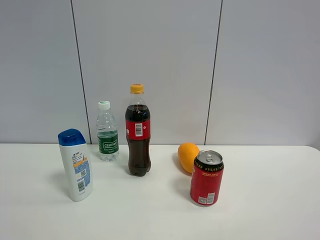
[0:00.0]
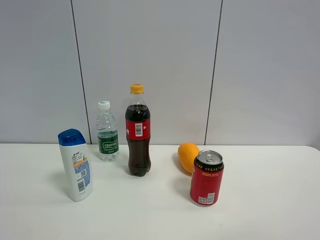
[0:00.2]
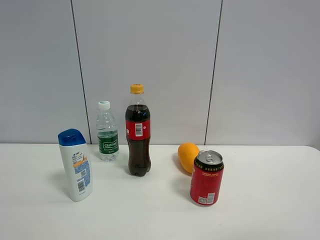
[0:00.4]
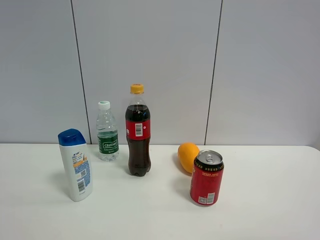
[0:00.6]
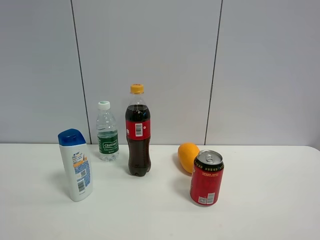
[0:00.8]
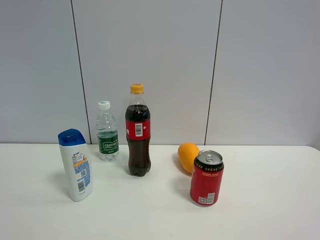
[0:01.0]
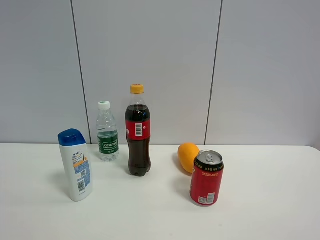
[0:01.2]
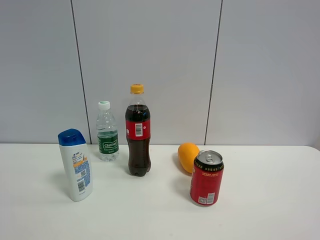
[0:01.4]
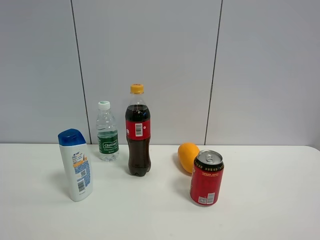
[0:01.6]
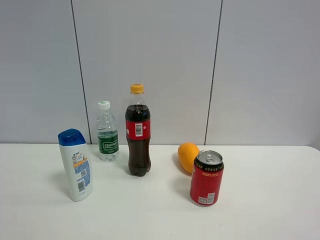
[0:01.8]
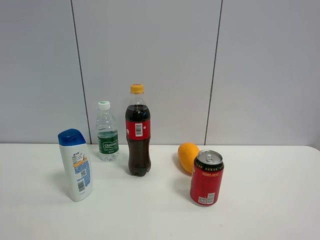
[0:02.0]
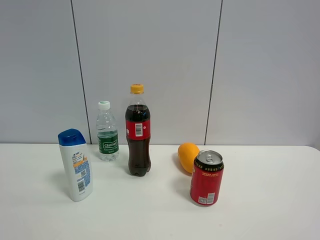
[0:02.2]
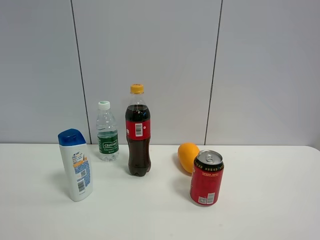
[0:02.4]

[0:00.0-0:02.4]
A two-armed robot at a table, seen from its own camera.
Task of the whole recording: the gripper move the object.
0:01.2 to 0:02.4: Both grippers stay put.

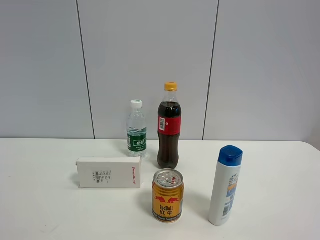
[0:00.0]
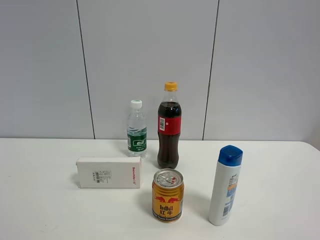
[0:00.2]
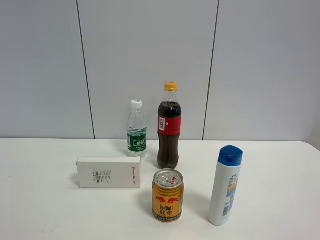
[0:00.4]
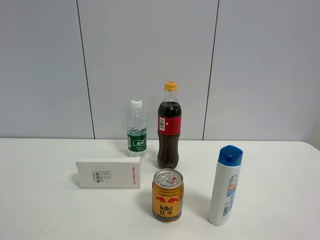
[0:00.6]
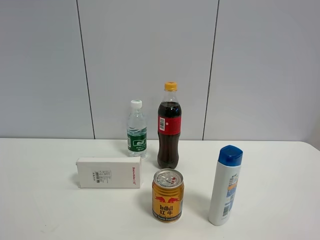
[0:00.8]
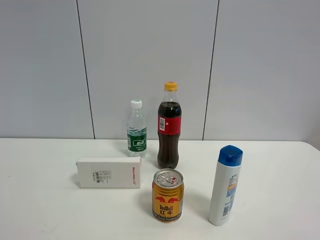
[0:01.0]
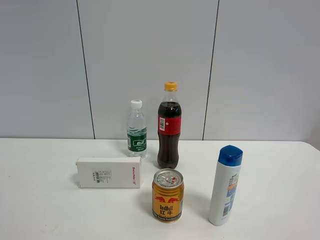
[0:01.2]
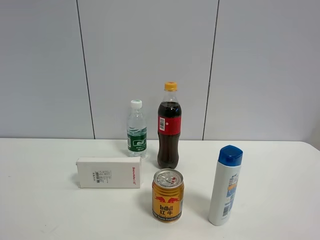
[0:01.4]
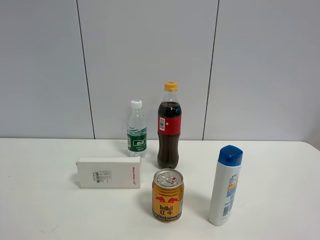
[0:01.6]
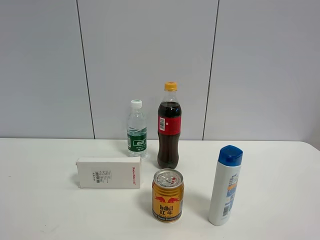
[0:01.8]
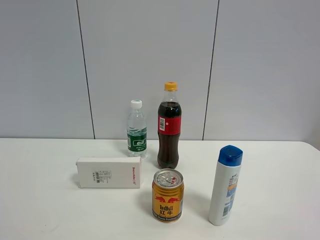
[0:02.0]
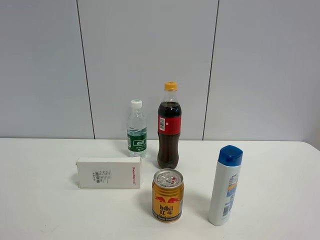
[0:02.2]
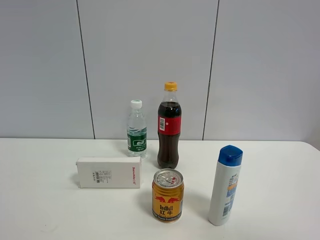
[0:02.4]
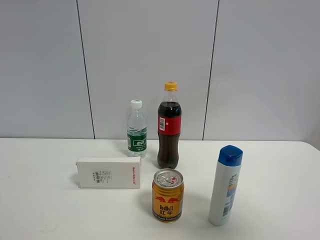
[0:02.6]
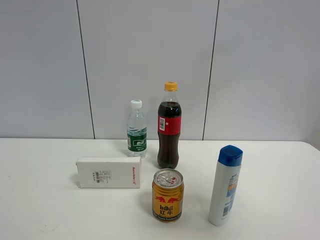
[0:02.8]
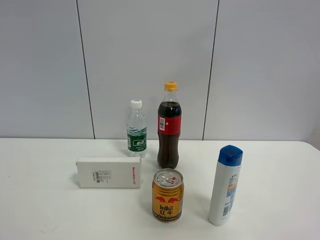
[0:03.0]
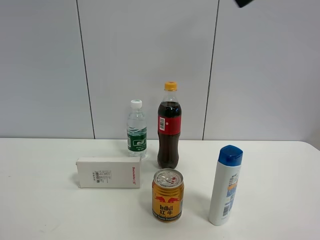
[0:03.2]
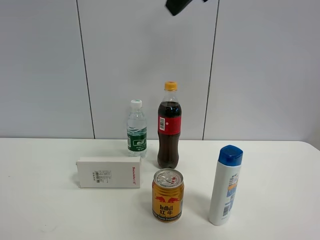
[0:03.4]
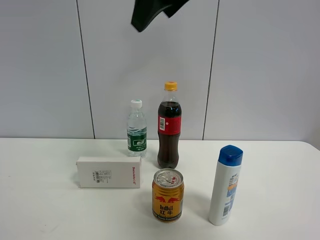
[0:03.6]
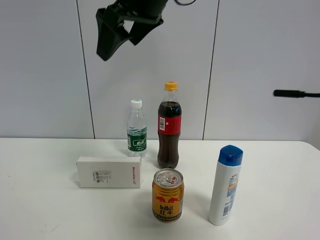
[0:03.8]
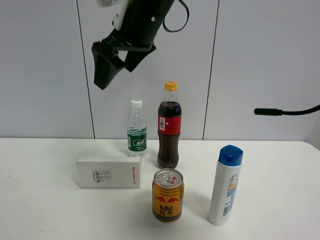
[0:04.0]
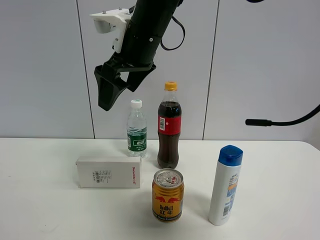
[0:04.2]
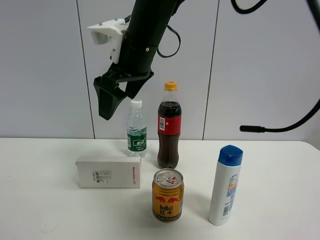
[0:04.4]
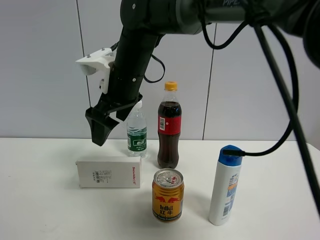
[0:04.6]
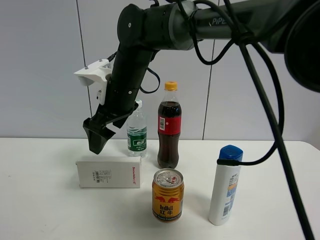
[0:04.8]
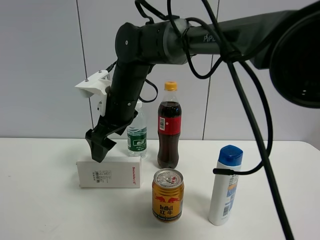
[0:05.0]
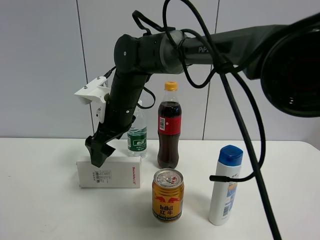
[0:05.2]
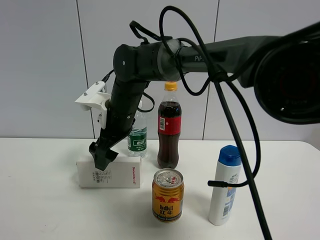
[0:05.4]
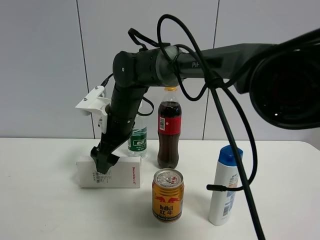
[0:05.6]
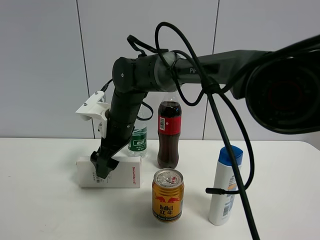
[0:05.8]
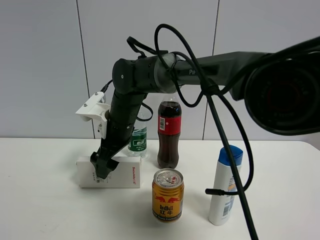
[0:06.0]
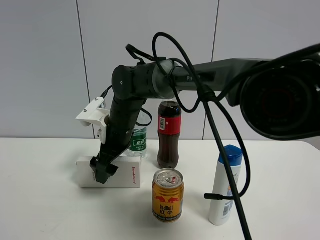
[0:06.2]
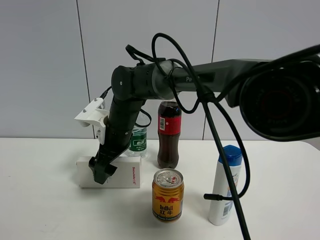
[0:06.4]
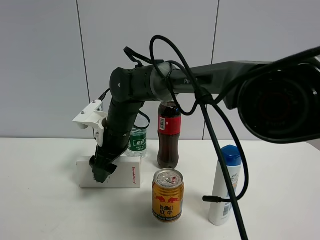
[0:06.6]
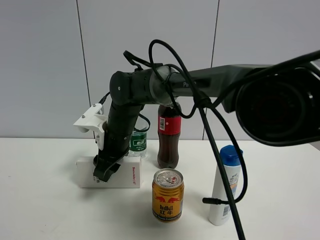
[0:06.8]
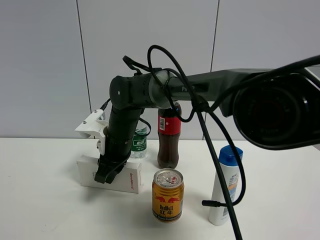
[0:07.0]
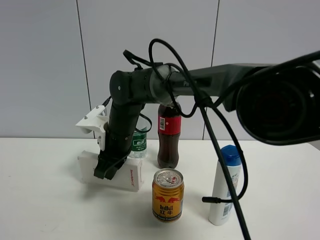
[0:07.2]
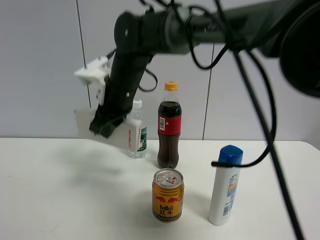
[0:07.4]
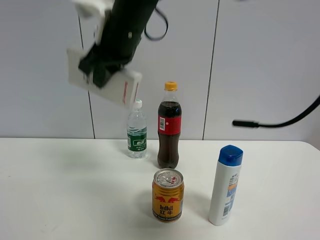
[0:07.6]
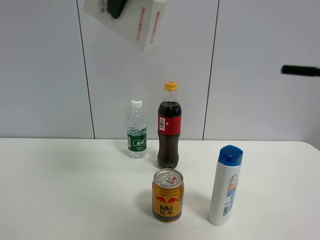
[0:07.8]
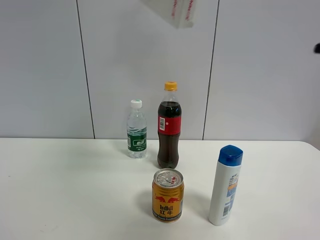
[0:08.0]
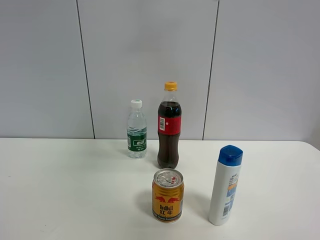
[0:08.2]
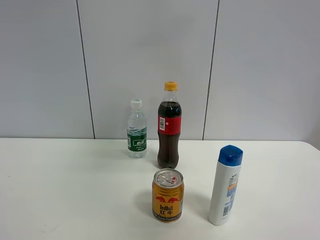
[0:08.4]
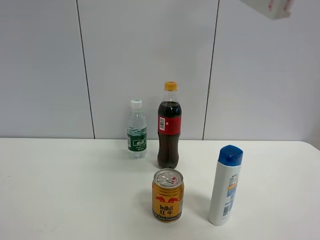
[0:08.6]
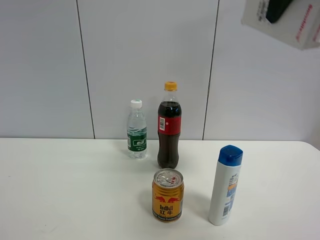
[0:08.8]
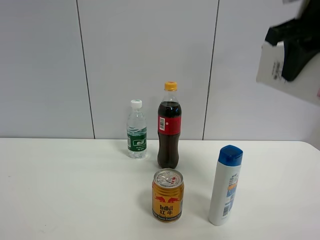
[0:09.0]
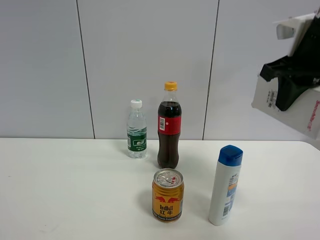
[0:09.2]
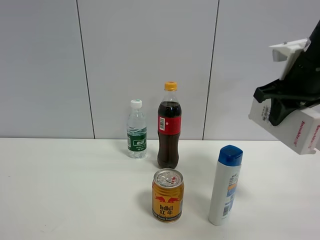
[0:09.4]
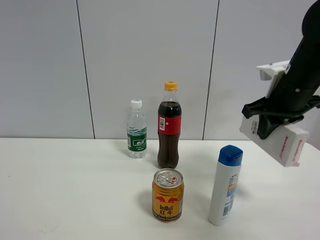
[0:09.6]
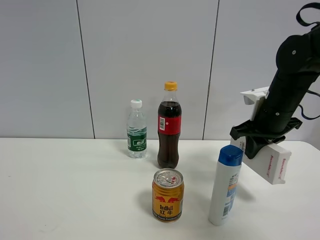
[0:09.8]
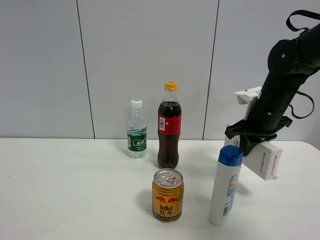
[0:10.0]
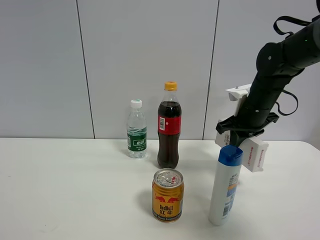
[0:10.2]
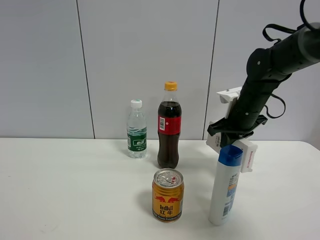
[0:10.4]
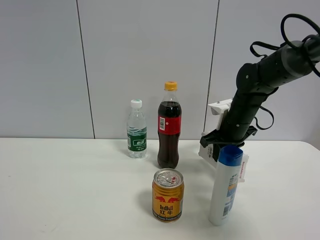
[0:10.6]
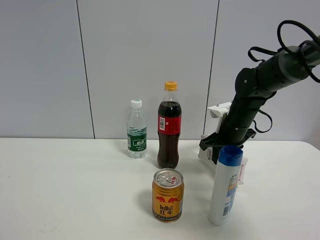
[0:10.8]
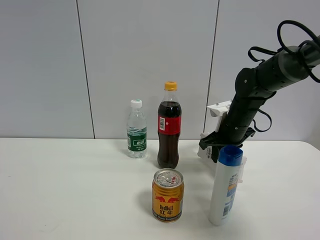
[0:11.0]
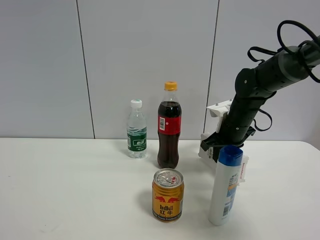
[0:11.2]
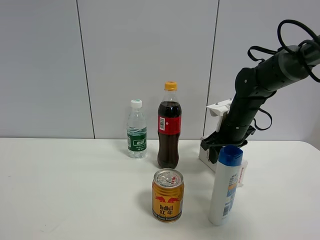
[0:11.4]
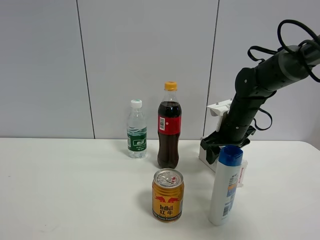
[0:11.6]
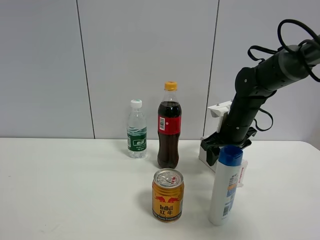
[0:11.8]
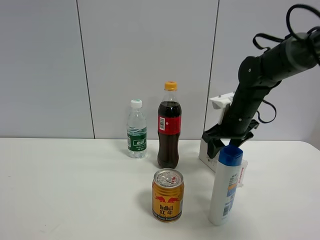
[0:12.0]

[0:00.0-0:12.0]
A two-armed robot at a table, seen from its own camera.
Task of the whole recording: the gripper move the object.
Step, 0:00.0 to 0:07.0: Grasp the USB box with the right gripper.
Step, 0:07.2 to 0:11.6: Place the USB box on the table with the right gripper.
0:00.0 to 0:01.6: Both grippers stay about where they are.
0:01.6 to 0:03.0: The right gripper goes some 25 cm forward and upward.
0:03.0 to 0:04.4: The right gripper moves to the left, forward and downward, roughly 35 cm.
0:04.4 to 0:06.0: The right gripper heads downward, covering approximately 15 cm.
0:06.0 to 0:07.6: The right gripper is displaced upward by approximately 20 cm, and closes.
0:07.6 to 0:09.0: The right gripper moves to the right, approximately 30 cm.
0:09.0 to 0:10.4: The right gripper travels downward and forward by roughly 25 cm.
0:10.4 to 0:12.0: The right gripper opens up.

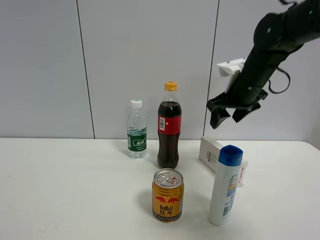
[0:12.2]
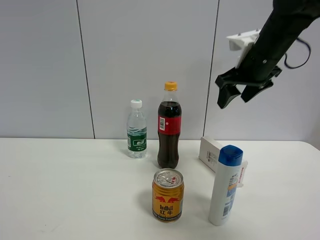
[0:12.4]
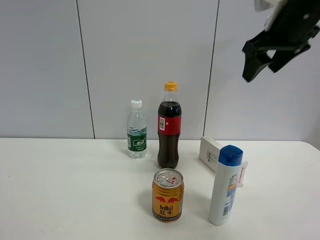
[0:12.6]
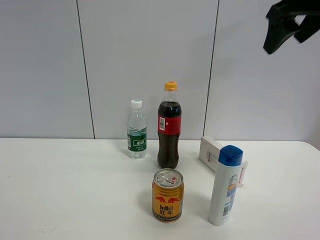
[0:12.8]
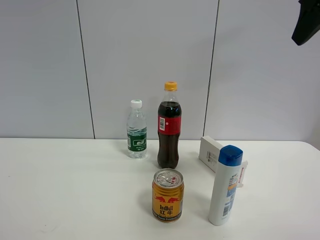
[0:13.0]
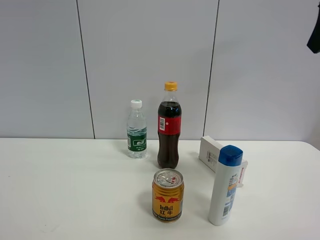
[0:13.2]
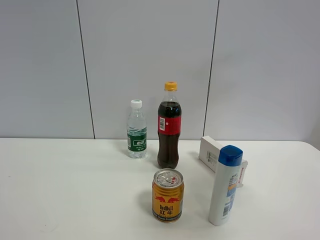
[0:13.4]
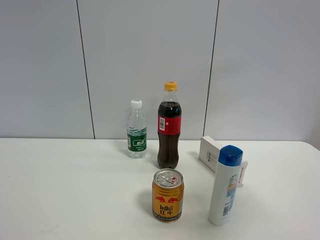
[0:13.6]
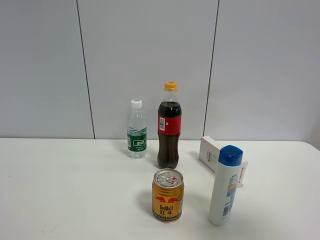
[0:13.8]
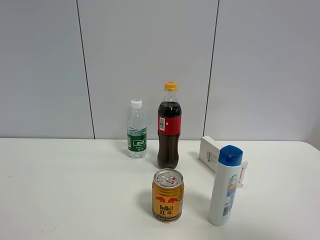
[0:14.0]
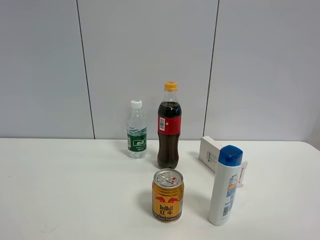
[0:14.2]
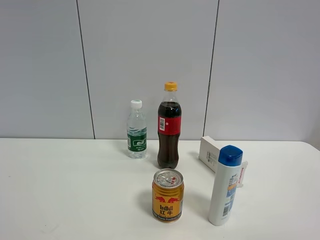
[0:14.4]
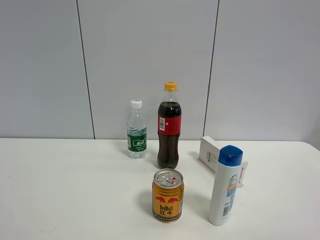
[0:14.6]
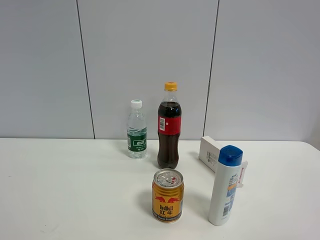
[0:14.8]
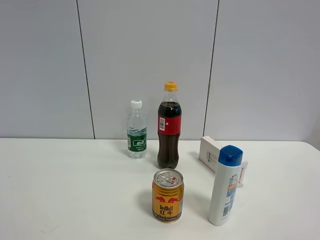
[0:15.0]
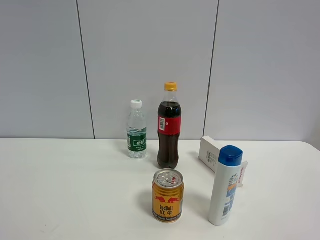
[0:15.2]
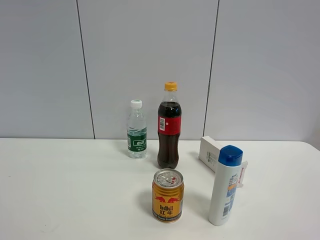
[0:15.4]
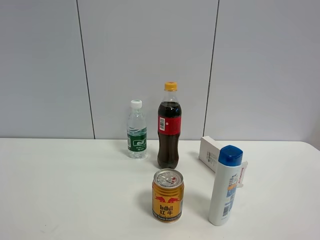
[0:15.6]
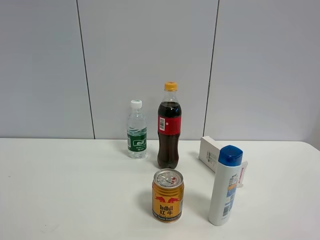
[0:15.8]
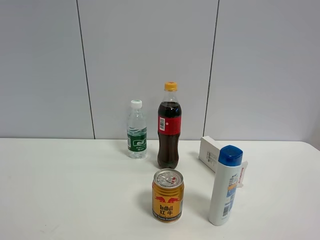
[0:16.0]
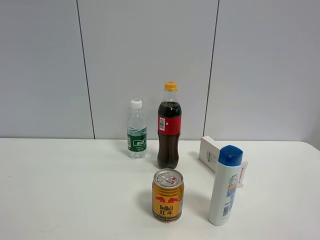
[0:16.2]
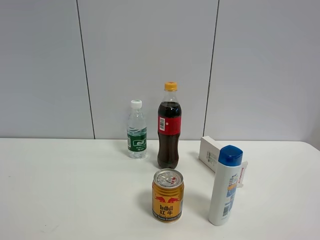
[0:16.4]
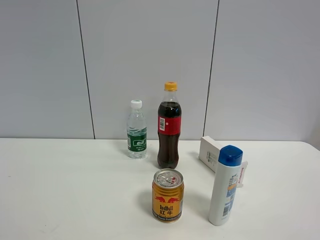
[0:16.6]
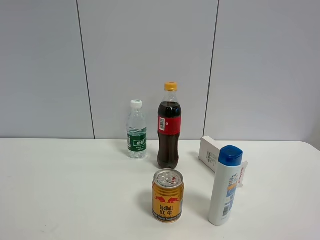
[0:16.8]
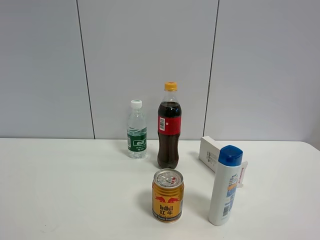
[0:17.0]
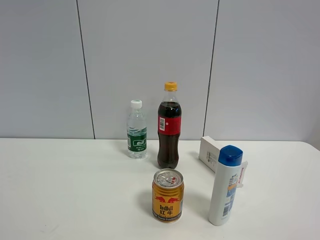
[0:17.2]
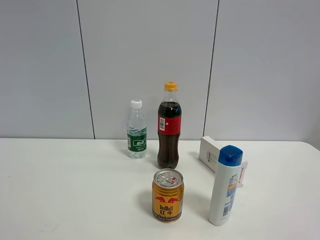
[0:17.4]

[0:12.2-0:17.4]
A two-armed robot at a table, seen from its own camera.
Task of the whole recording: the gripper move the object.
0:12.2 to 0:14.0: The right gripper goes approximately 35 cm backward.
0:14.0 to 0:15.6: The right gripper goes some 5 cm backward, and opens up.

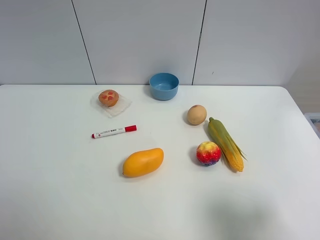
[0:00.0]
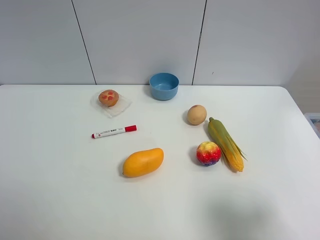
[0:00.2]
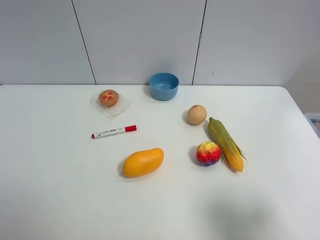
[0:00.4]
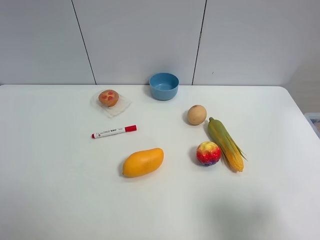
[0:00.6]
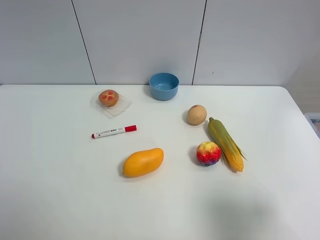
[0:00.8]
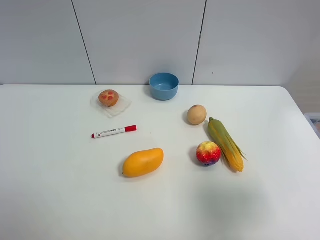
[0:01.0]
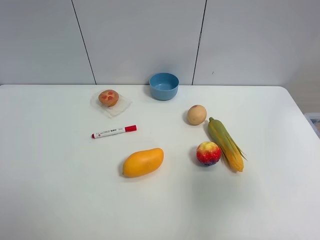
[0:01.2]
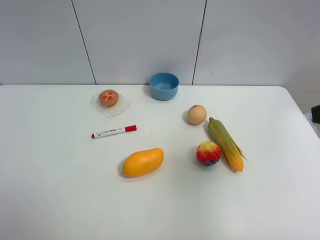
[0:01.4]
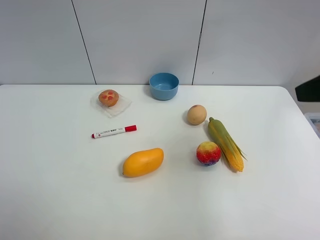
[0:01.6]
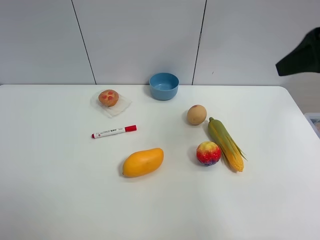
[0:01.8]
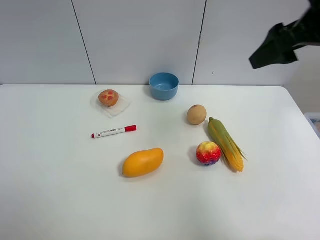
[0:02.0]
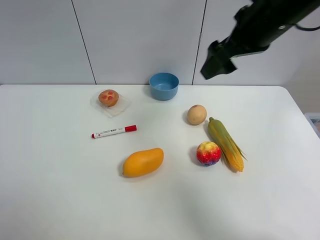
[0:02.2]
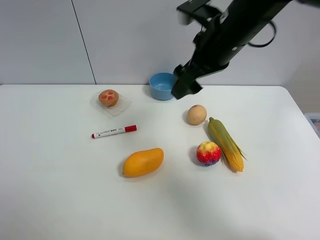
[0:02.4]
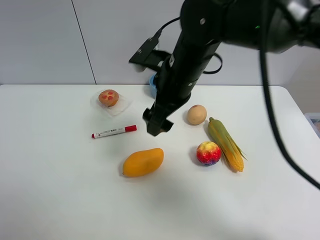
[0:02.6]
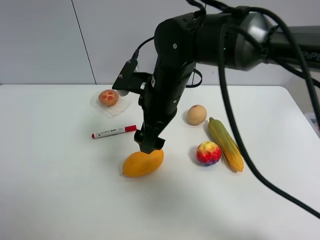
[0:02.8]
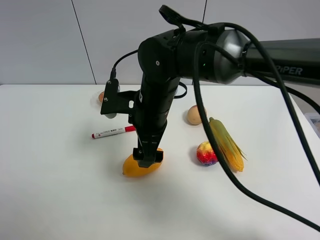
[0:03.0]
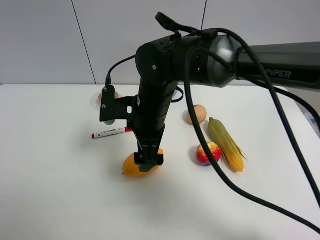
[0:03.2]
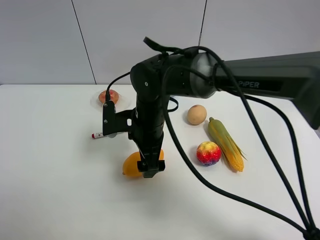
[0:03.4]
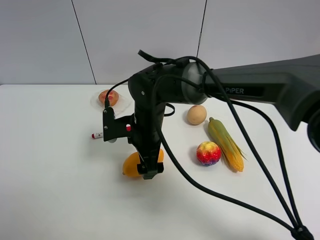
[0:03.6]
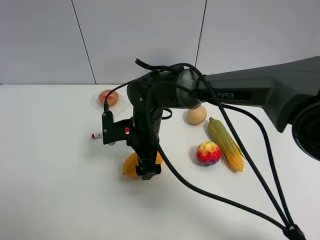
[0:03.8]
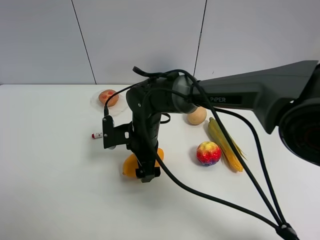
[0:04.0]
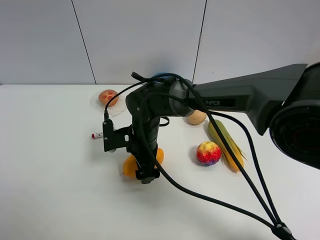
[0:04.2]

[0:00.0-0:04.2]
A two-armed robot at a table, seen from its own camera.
Task of the whole recording: the gripper move the object.
0:01.4 to 0:02.8: The right gripper shifts some 35 cm to the left, forward and downward.
0:02.8 to 0:04.2: The right gripper shifts some 15 cm downward.
